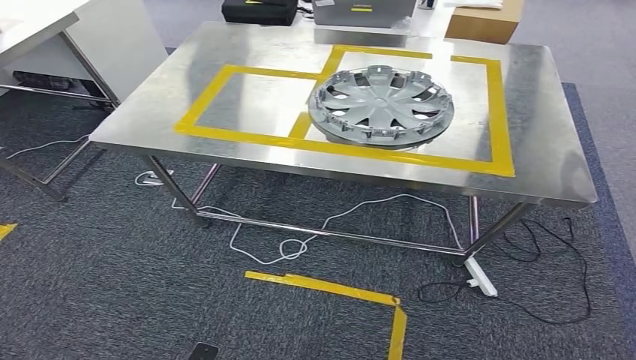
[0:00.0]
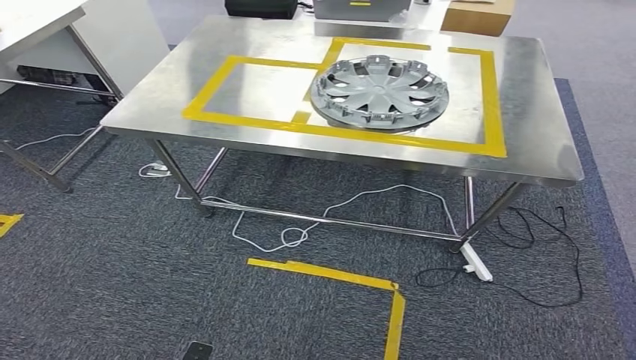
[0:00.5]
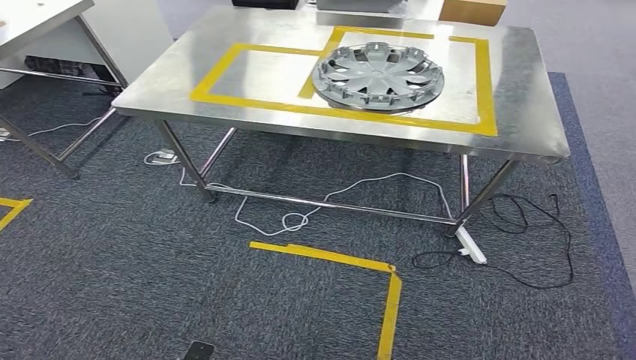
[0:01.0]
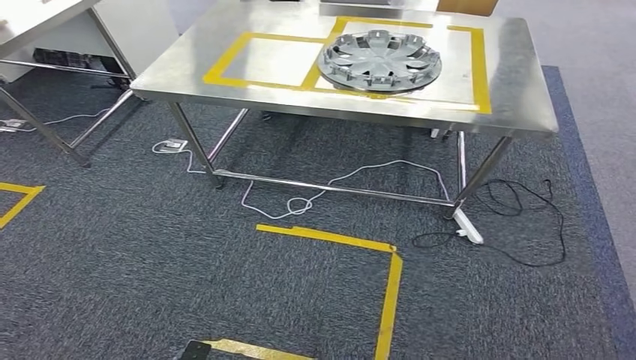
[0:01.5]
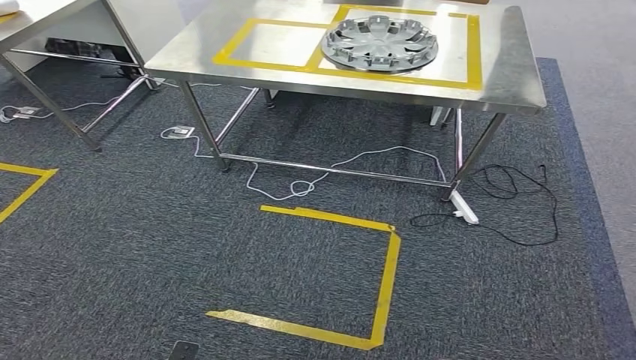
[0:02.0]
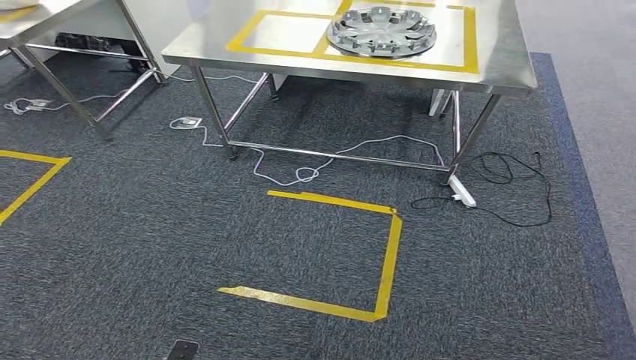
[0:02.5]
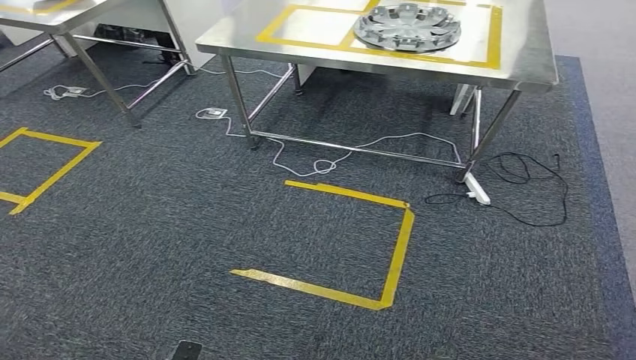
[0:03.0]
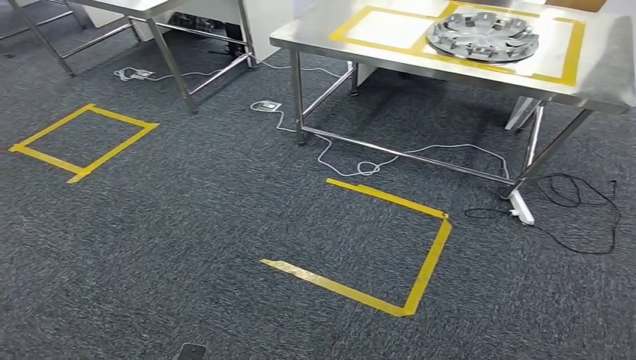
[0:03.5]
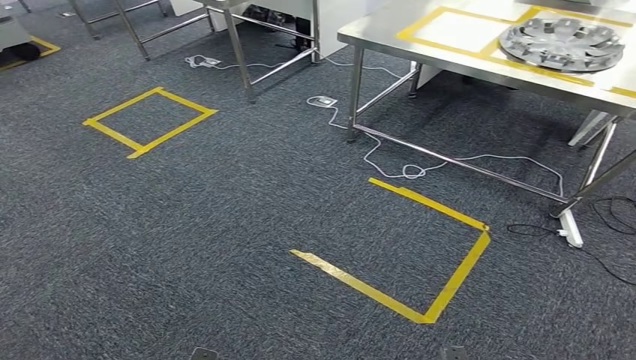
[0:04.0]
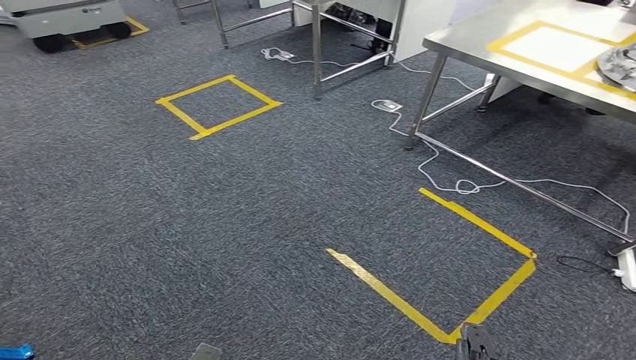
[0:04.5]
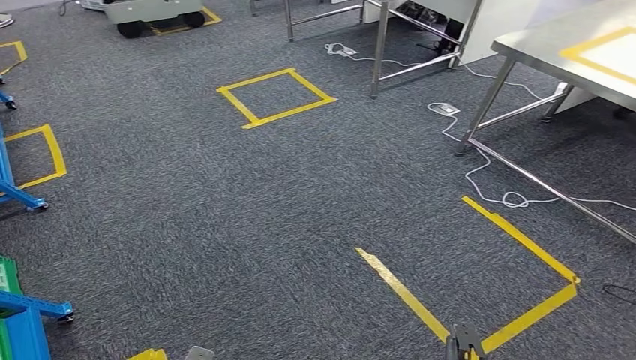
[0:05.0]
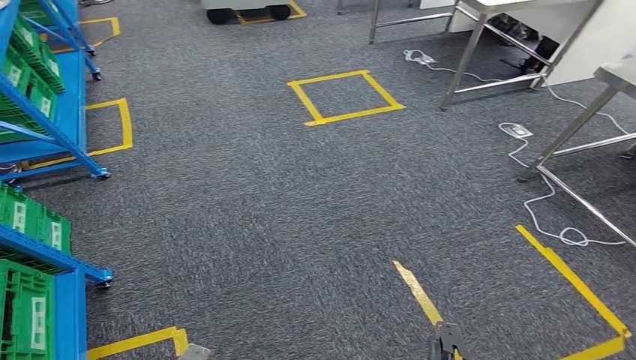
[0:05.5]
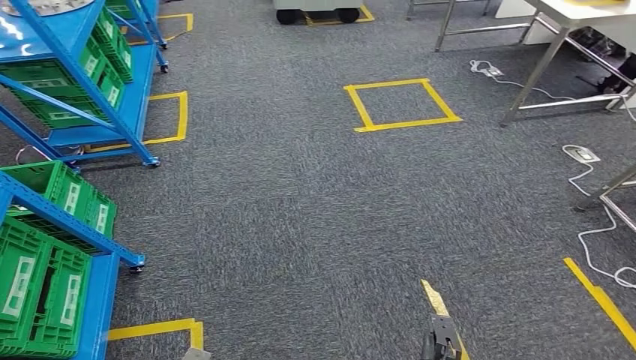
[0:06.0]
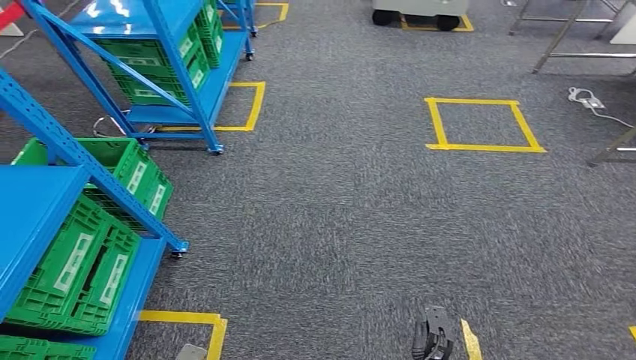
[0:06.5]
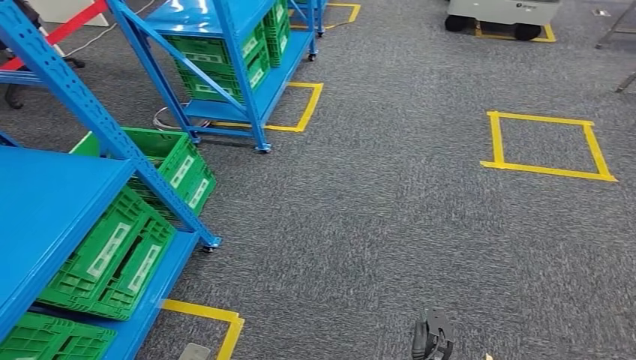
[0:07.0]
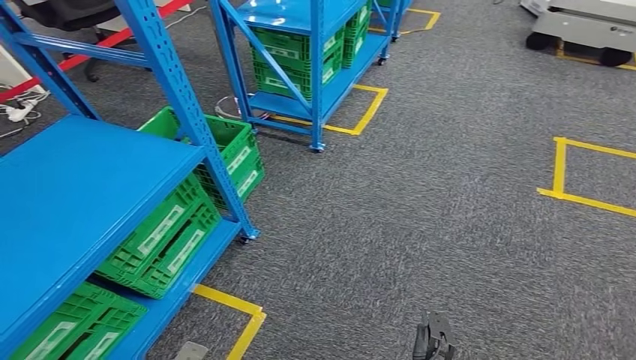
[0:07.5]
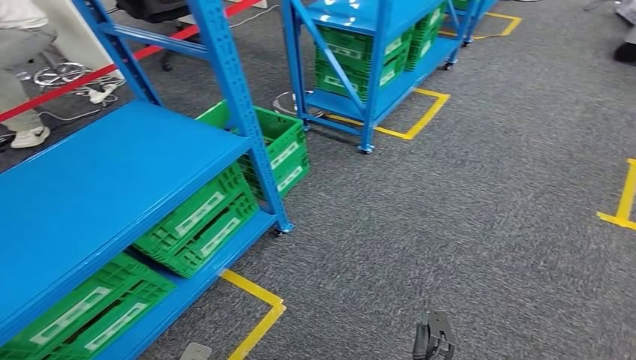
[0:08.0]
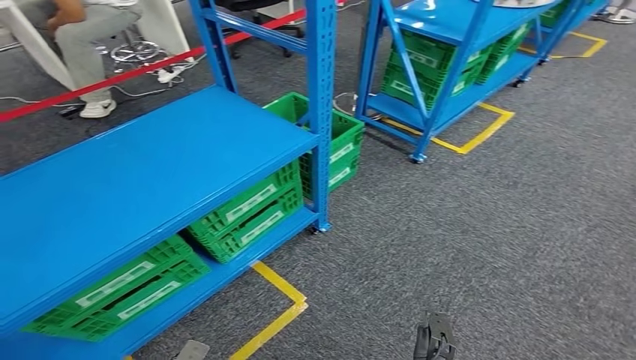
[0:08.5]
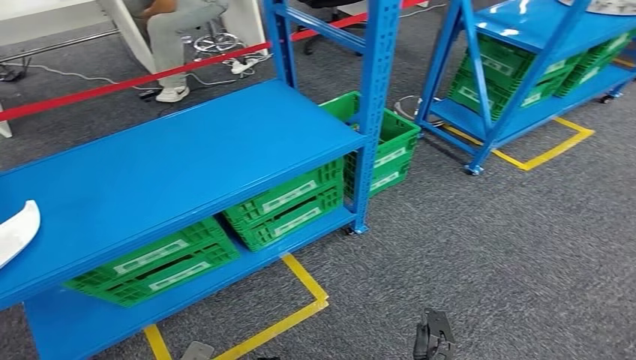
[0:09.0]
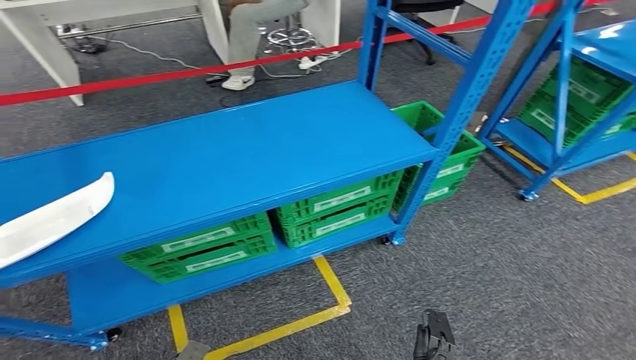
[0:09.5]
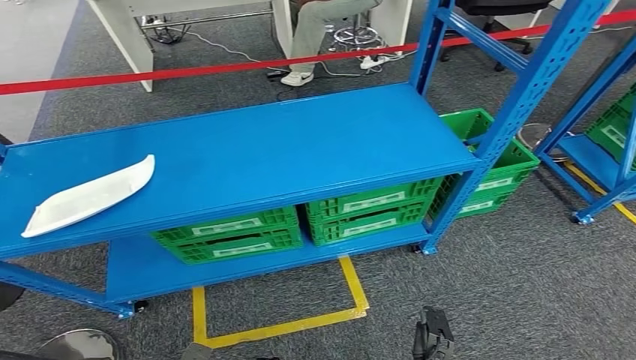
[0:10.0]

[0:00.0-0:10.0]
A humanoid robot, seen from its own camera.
Step, 0:00.0 to 0:10.0: Move to the initial position of the workbench.
